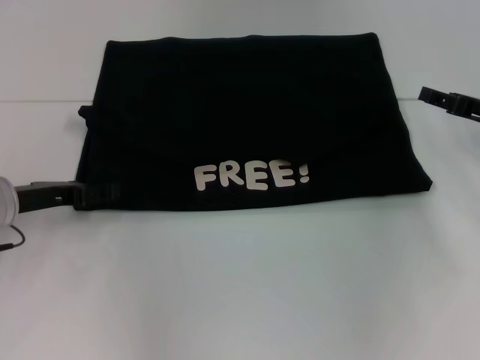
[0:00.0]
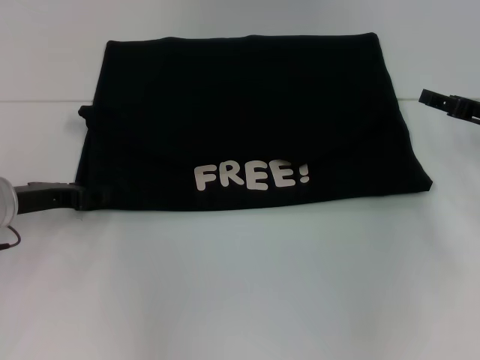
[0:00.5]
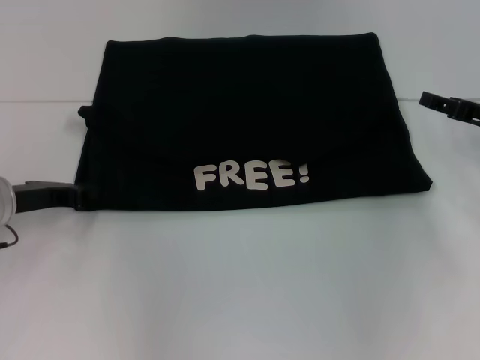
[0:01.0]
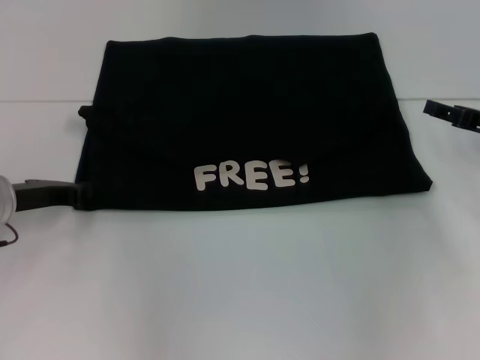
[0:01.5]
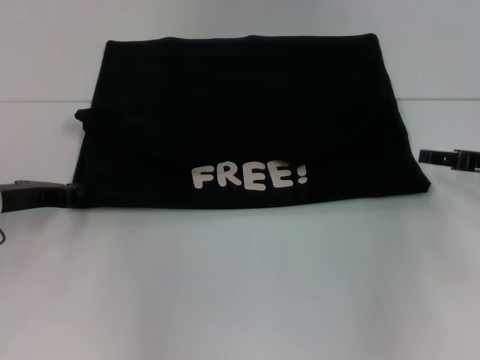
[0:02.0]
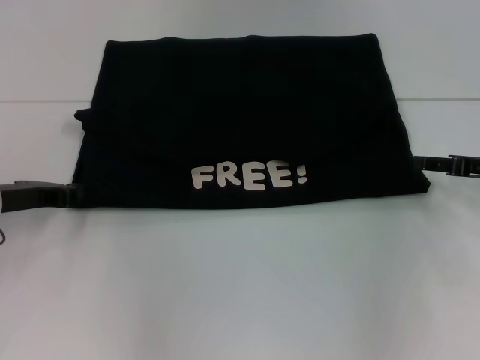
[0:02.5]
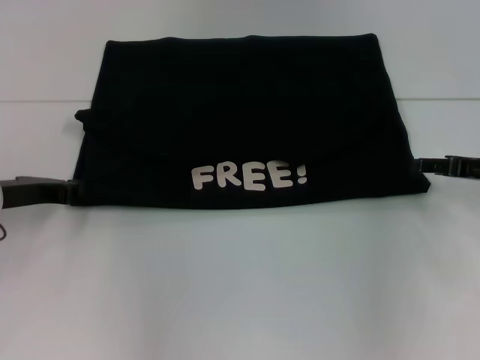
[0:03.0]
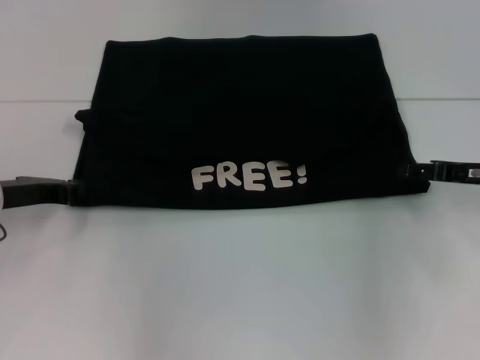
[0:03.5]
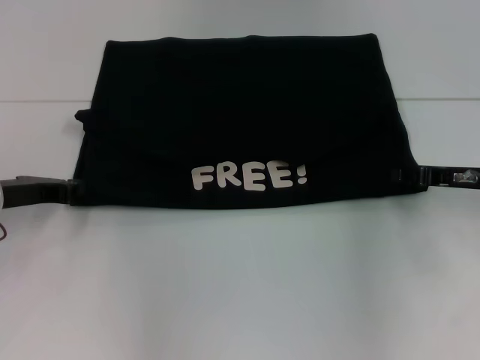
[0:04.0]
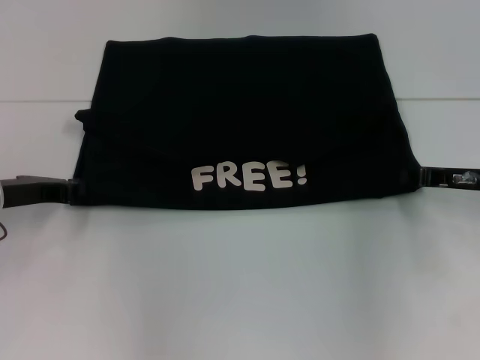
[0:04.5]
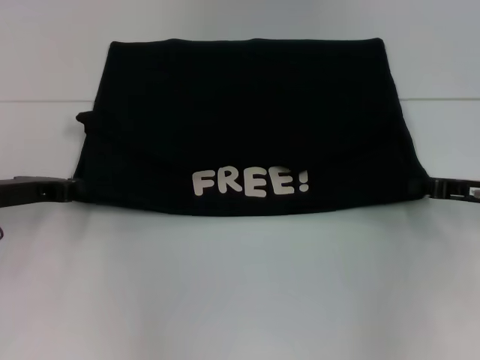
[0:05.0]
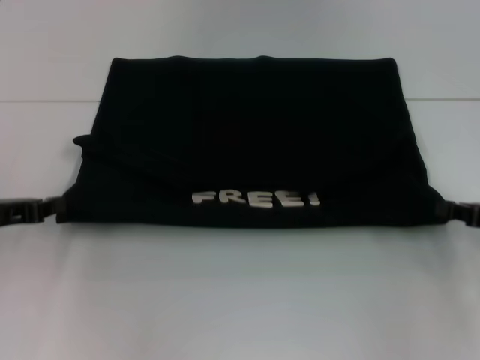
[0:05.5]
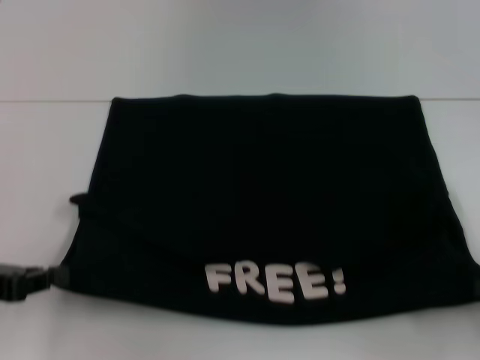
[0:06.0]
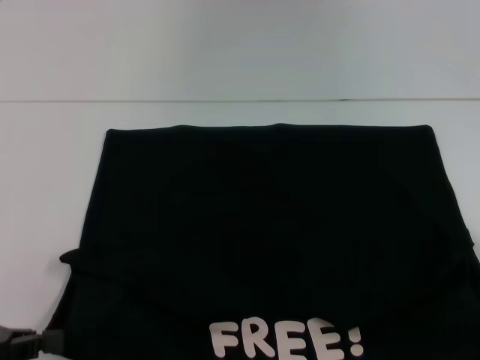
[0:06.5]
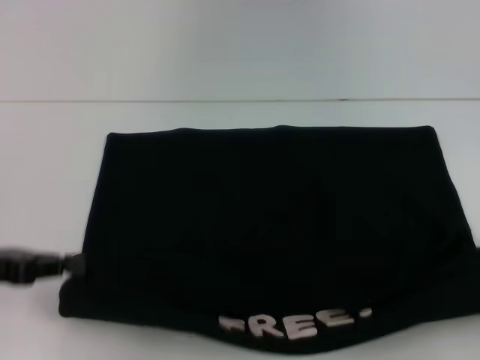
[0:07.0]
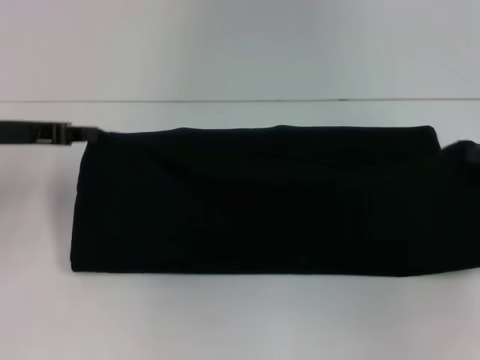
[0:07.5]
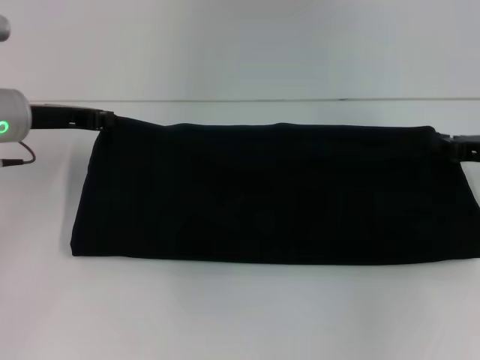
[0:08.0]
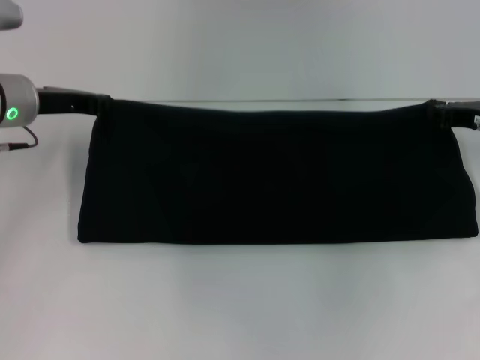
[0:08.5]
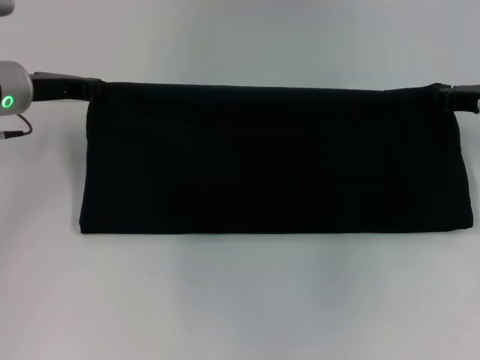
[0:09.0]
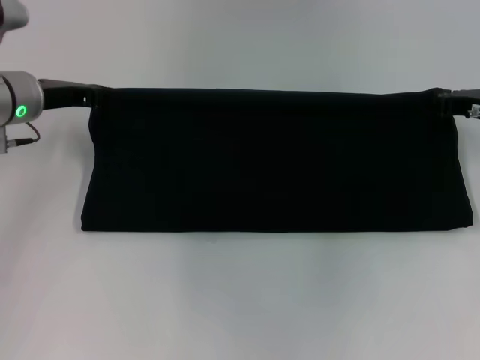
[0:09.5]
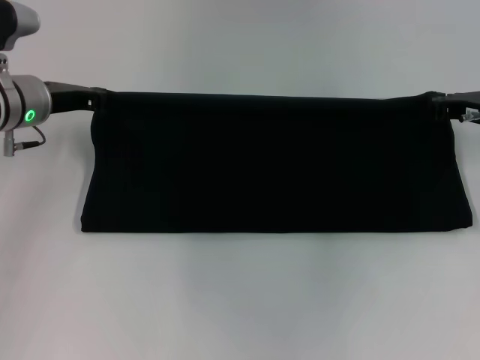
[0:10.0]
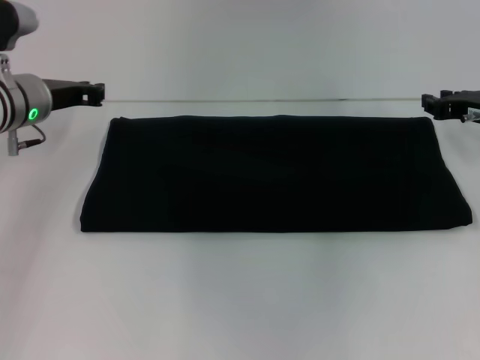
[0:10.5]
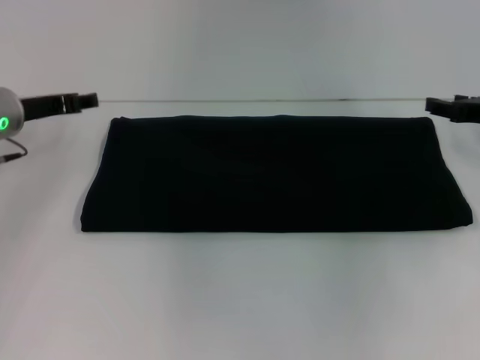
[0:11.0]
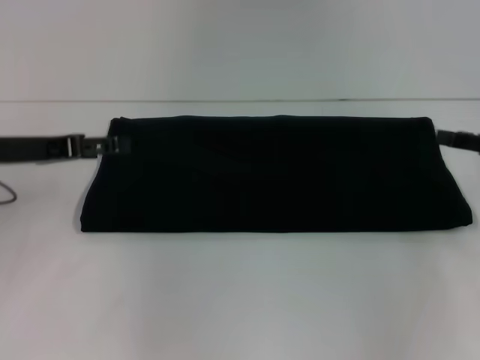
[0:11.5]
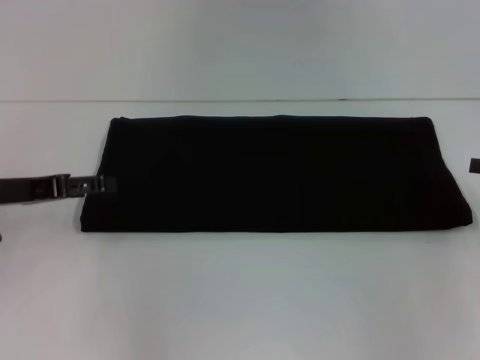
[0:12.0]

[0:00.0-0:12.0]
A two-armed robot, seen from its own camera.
Step, 0:00.0 to 0:06.5: Pull the clothes with your left hand.
Step, 0:00.0 to 0:06.5: Pull the clothes with your right hand.
Step, 0:07.0 to 0:10.5: Fold the clothes with your right hand.
0:00.0 to 0:02.0: The left gripper closes.
0:02.0 to 0:04.0: The grippers stay close to where they were, moving slightly.
0:04.0 to 0:06.0: The right gripper goes approximately 15 cm backward and to the right, and closes up; the left gripper is displaced backward by about 10 cm.
0:06.0 to 0:08.0: Both grippers move forward, approximately 15 cm.
0:08.0 to 0:10.0: The right gripper changes place by approximately 5 cm.
0:10.0 to 0:12.0: The right gripper is displaced to the right and backward by roughly 15 cm, and opens. Meanwhile the left gripper goes about 10 cm backward and to the left, and opens up.

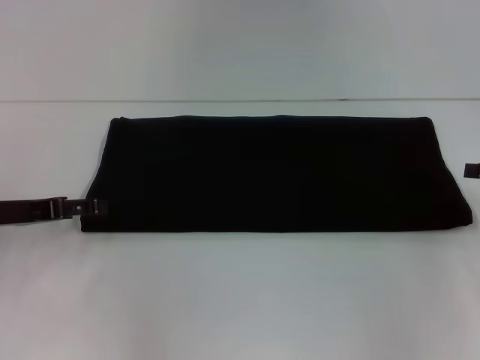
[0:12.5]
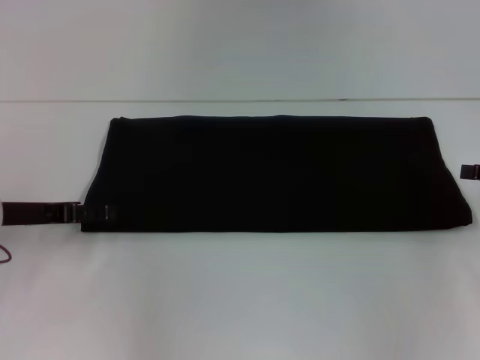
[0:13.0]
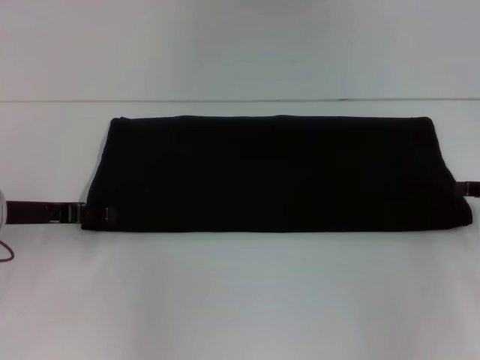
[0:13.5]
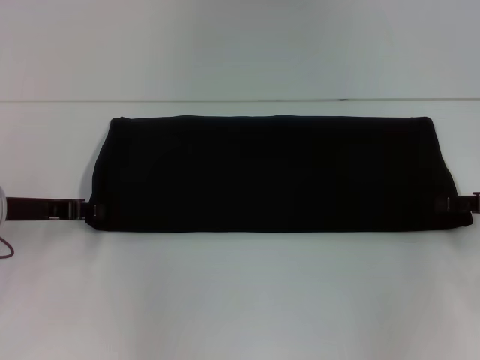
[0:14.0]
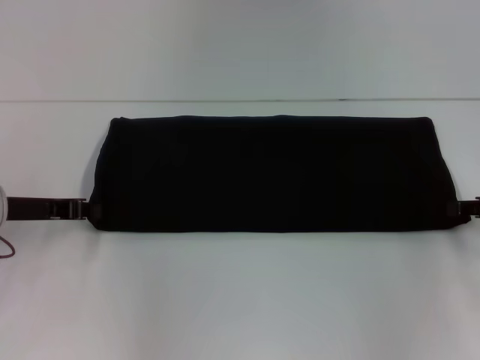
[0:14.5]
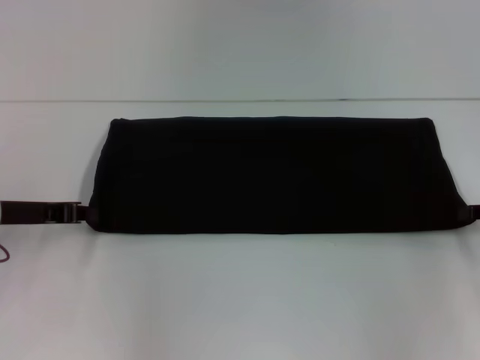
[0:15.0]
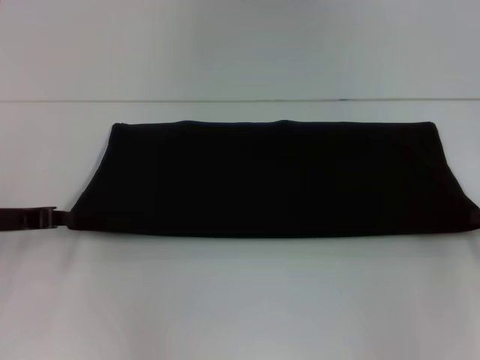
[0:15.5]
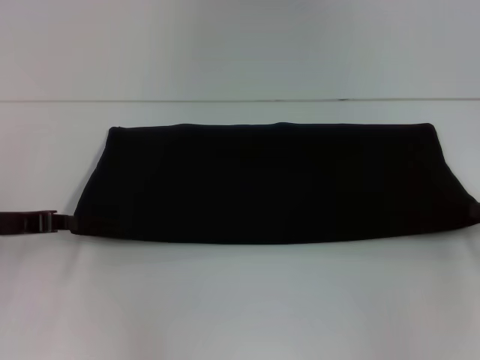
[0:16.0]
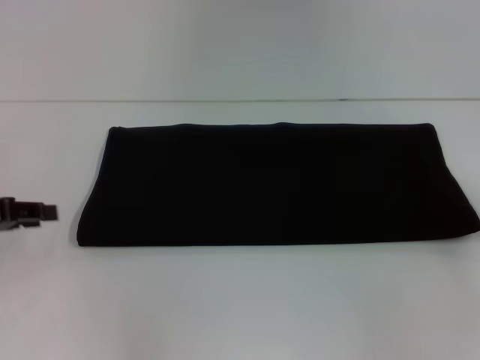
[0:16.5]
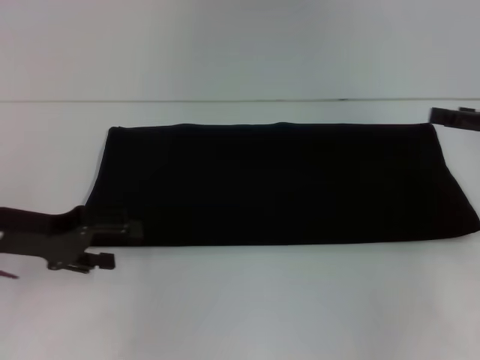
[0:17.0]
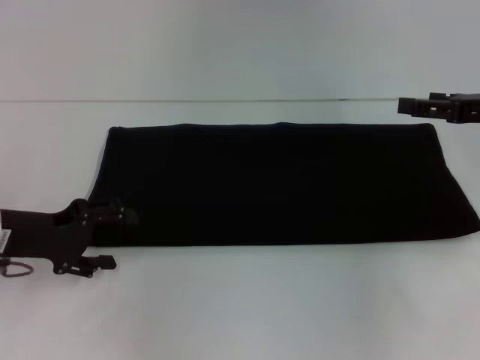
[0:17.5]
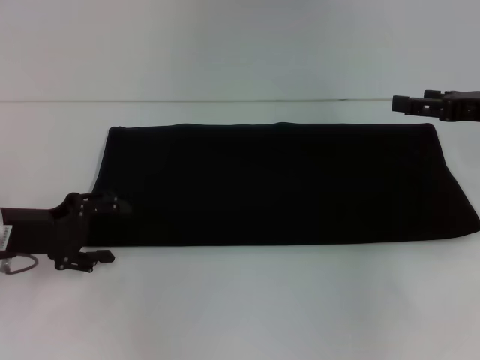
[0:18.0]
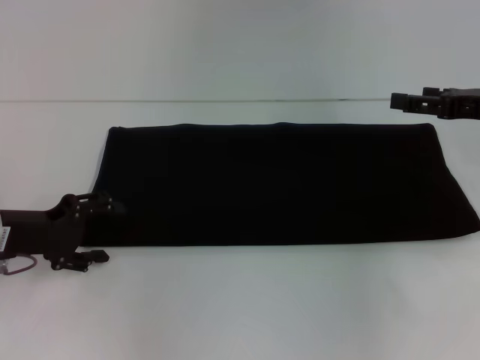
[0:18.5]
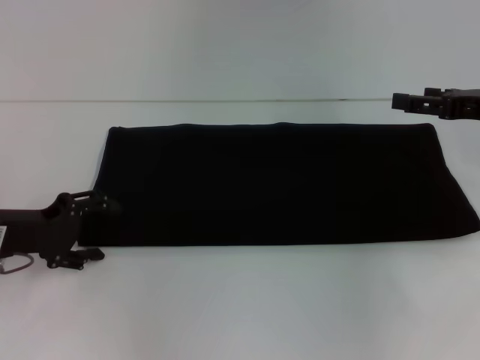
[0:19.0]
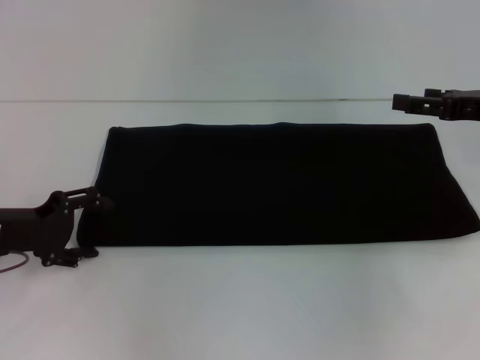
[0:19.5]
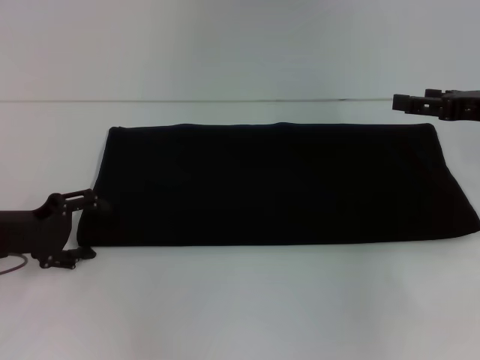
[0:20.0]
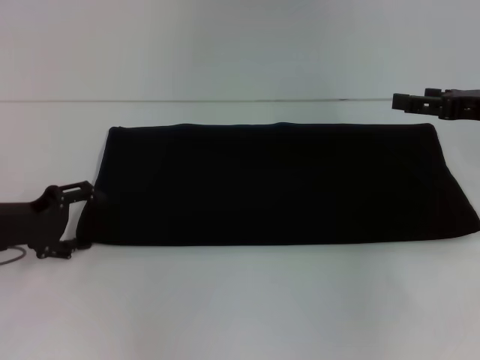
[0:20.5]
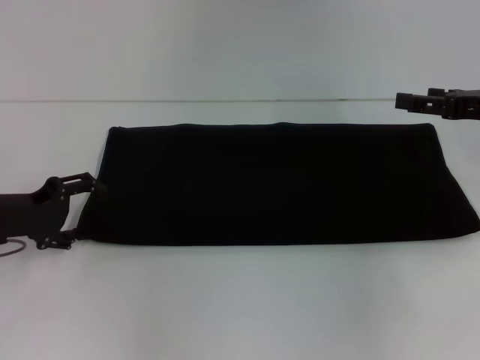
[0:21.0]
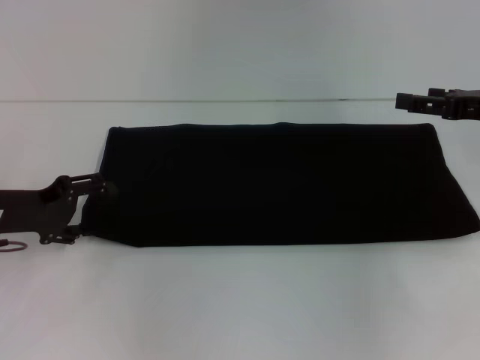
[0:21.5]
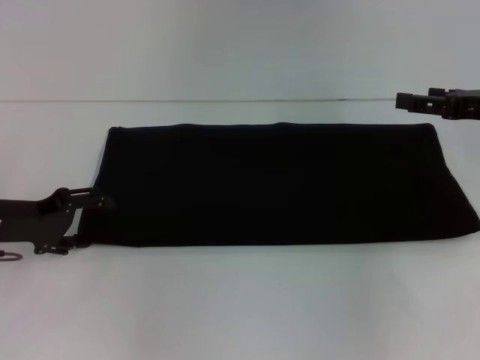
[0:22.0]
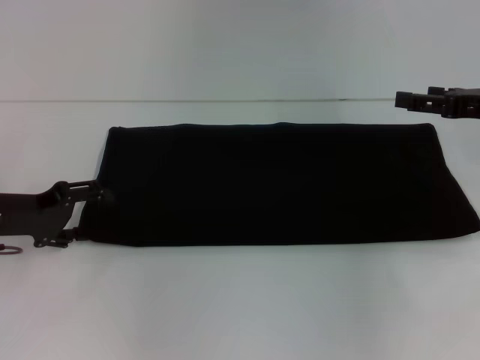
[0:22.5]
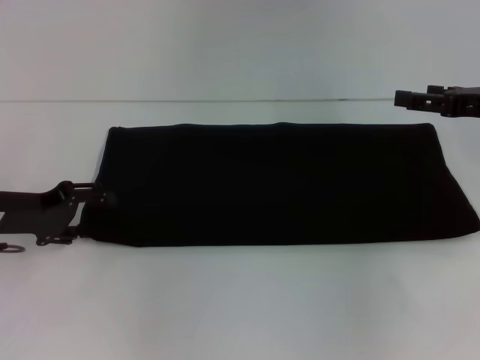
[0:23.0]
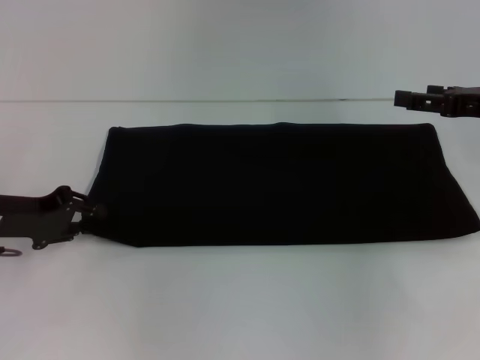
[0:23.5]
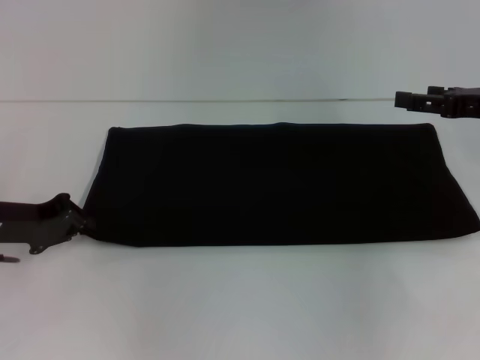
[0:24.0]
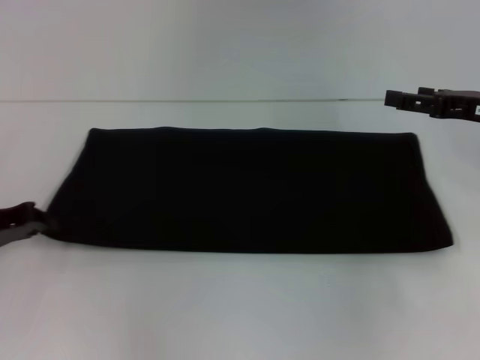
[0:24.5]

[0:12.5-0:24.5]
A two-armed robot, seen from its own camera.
0:12.5 to 0:14.5: The left gripper closes its fingers.
0:14.5 to 0:16.5: The left gripper heads to the left, covering some 5 cm; the right gripper shifts by about 5 cm, and closes, then opens again.
0:16.5 to 0:18.5: The right gripper heads to the left and forward, covering about 10 cm, and opens, while the left gripper moves downward, approximately 5 cm, and opens up.
0:18.5 to 0:22.5: The grippers stay close to where they were, moving slightly.
0:22.5 to 0:24.5: The left gripper closes up.

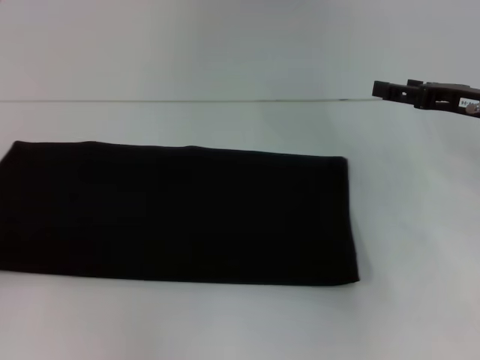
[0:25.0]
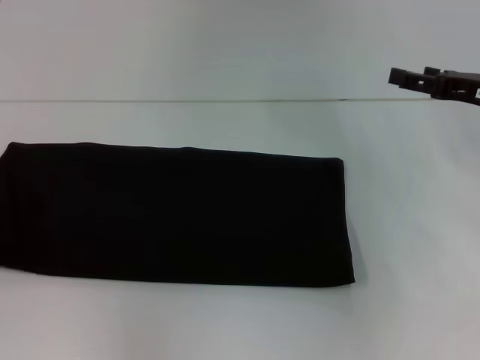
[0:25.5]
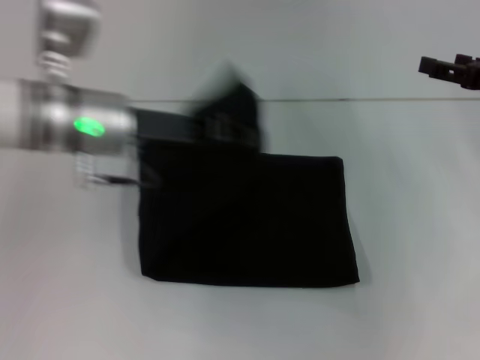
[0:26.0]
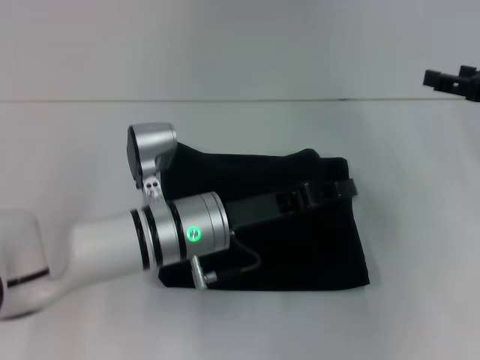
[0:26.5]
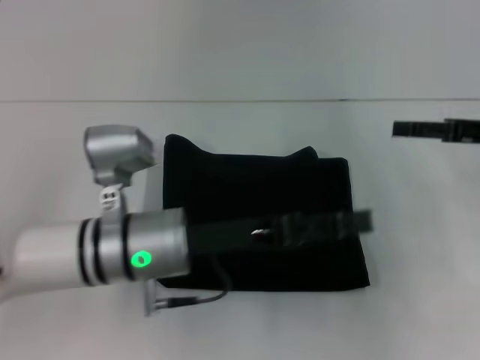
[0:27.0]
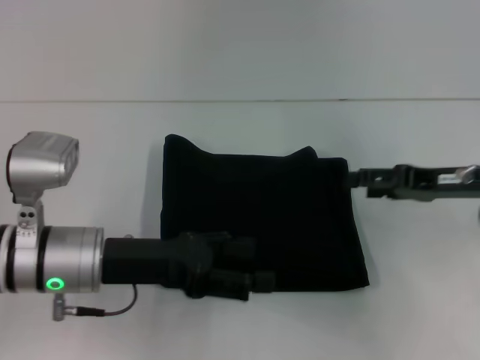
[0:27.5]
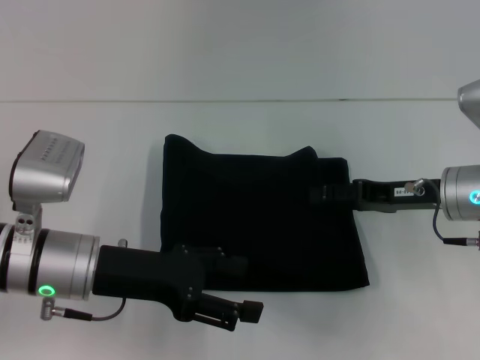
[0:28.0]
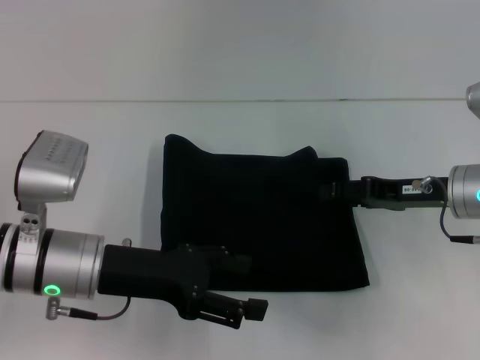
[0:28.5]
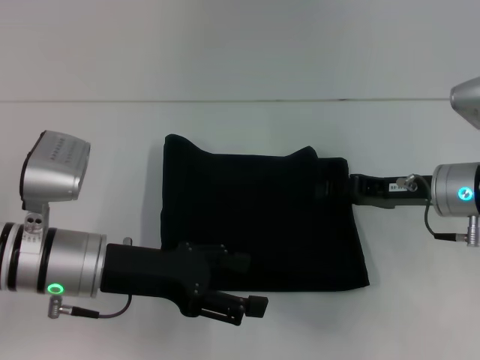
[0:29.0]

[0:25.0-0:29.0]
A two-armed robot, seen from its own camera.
0:25.0 to 0:27.0: The left gripper travels to the right by roughly 30 cm, and opens.
0:27.0 to 0:29.0: The left gripper travels to the left by roughly 10 cm, and opens its fingers; the right gripper shifts about 10 cm to the left and downward.
